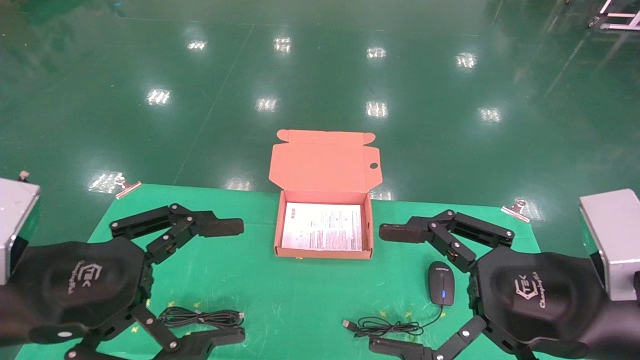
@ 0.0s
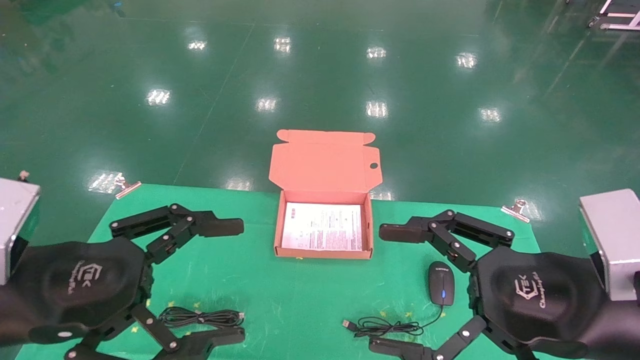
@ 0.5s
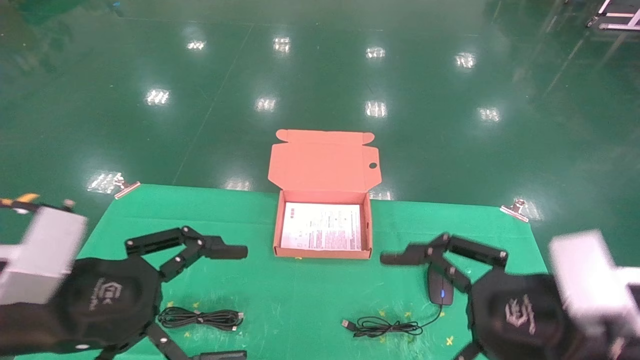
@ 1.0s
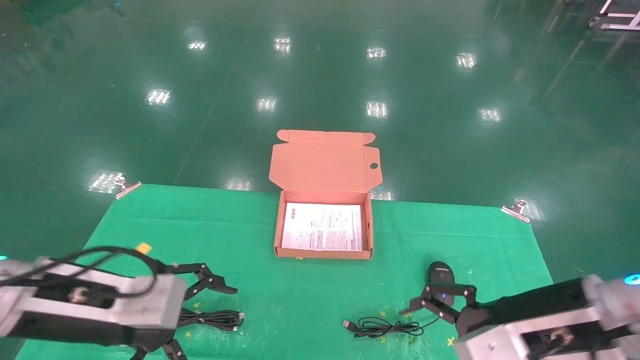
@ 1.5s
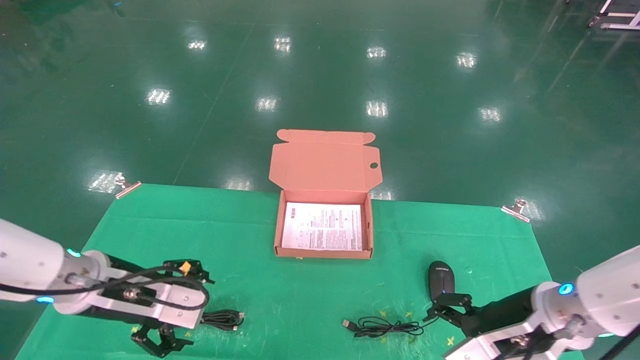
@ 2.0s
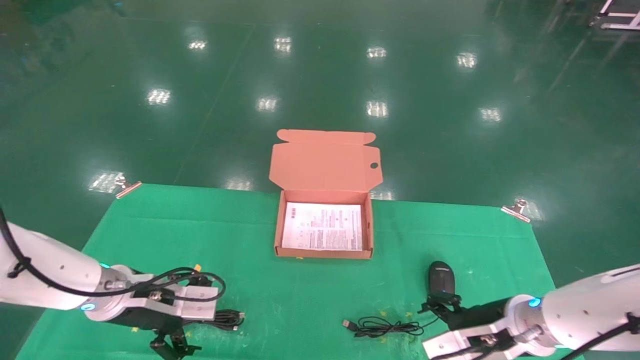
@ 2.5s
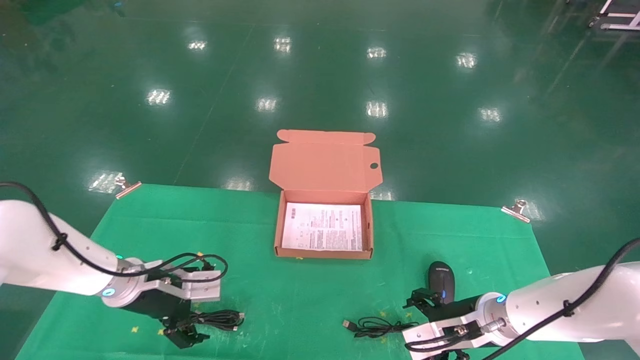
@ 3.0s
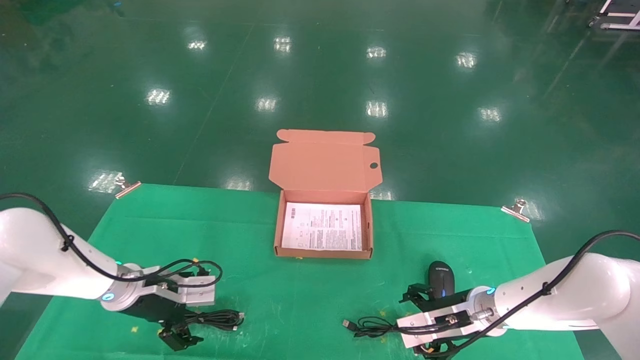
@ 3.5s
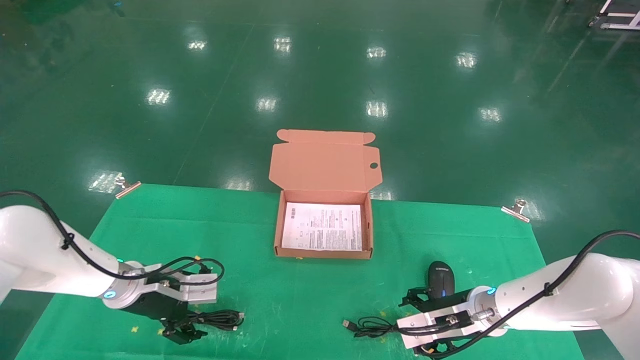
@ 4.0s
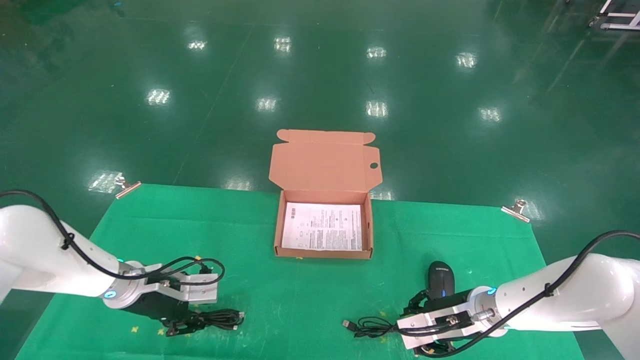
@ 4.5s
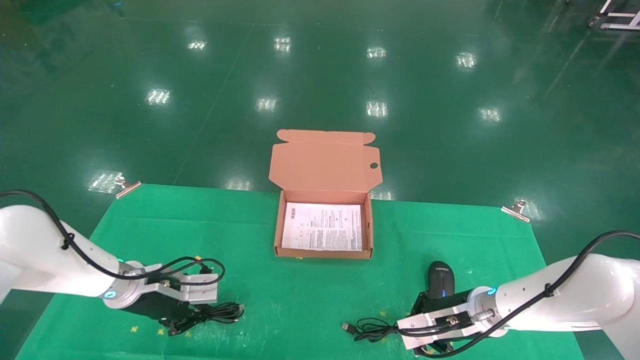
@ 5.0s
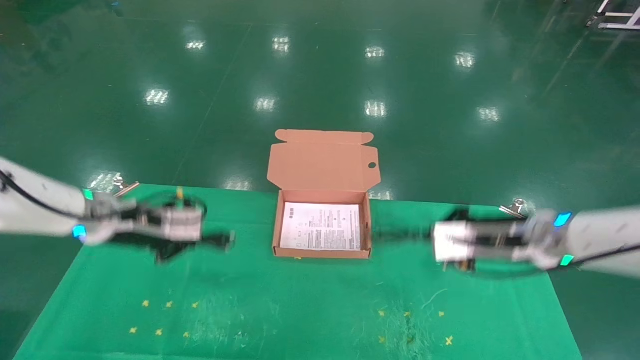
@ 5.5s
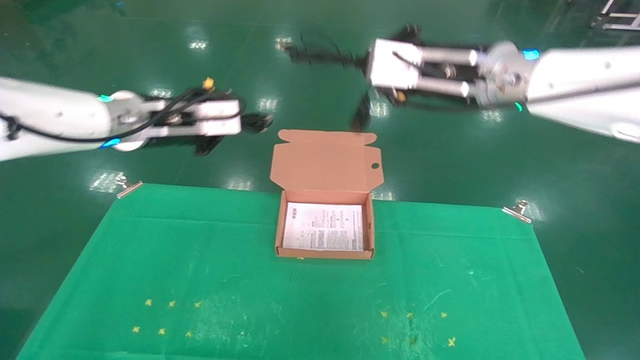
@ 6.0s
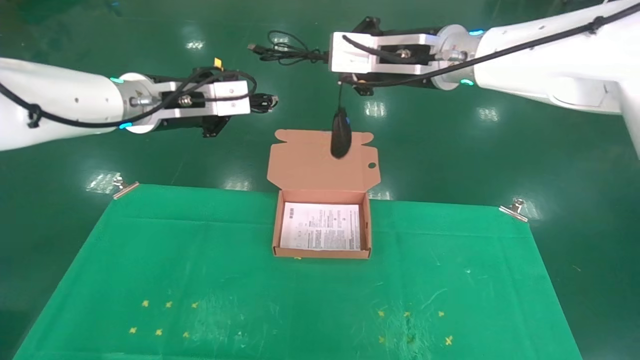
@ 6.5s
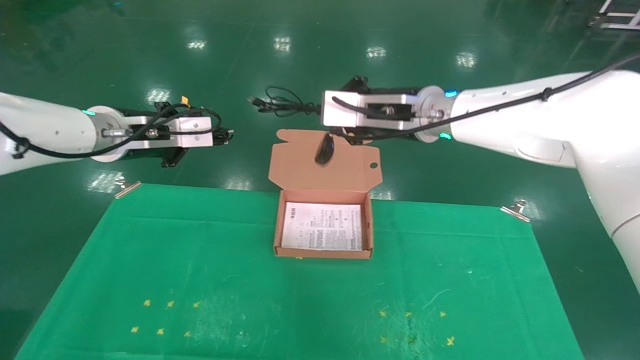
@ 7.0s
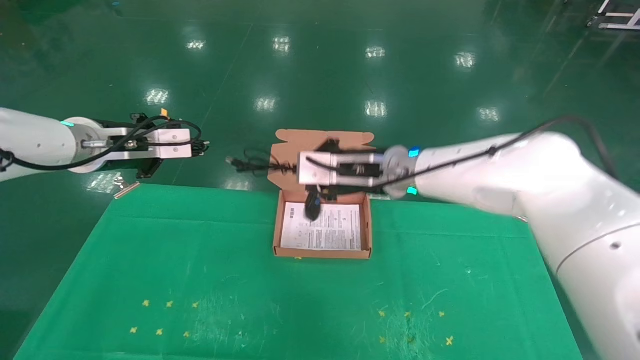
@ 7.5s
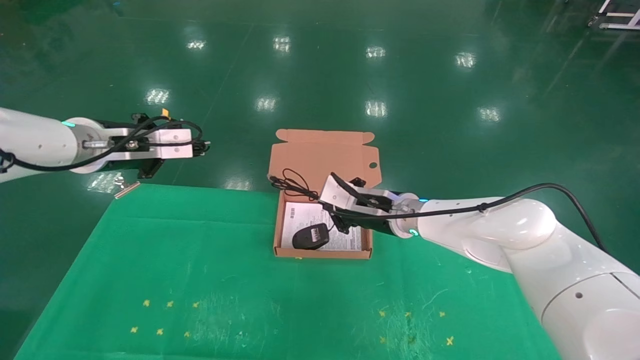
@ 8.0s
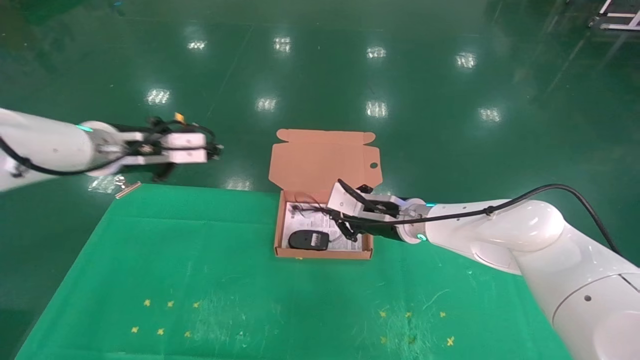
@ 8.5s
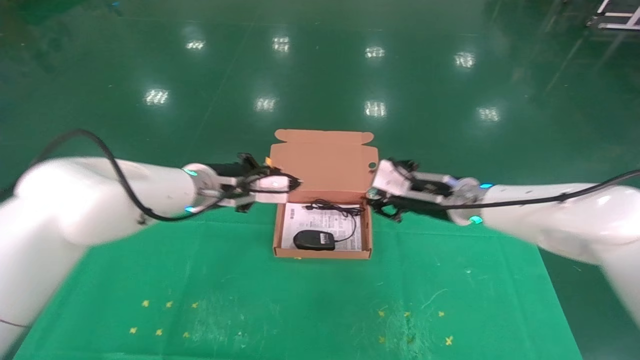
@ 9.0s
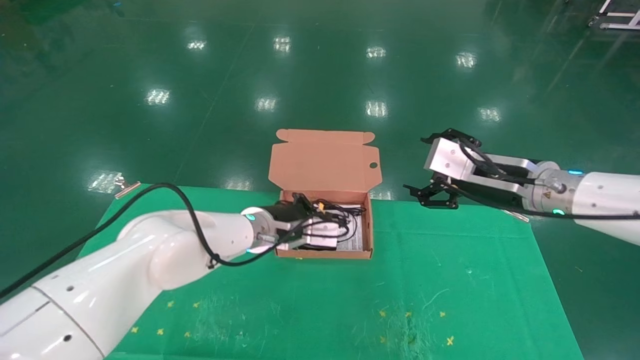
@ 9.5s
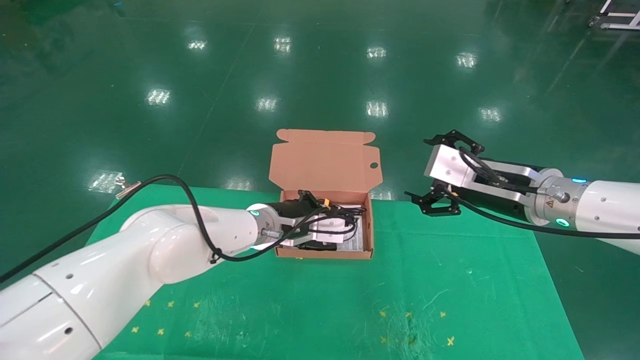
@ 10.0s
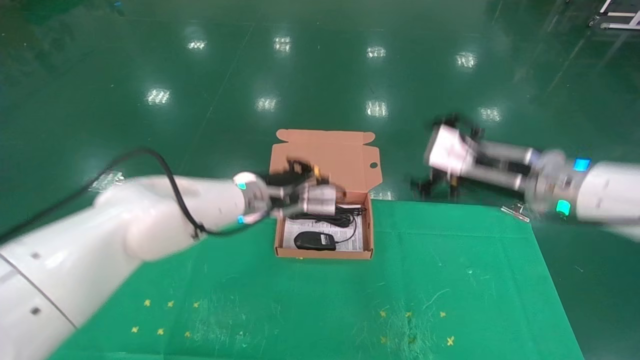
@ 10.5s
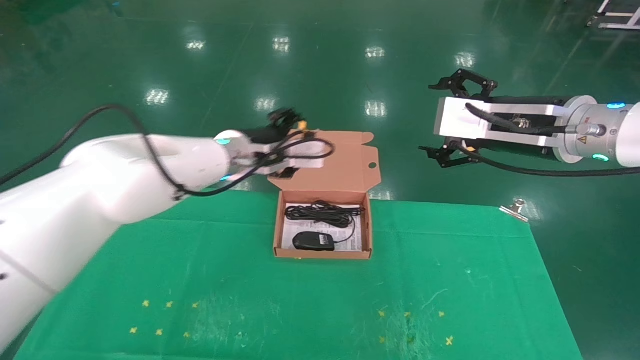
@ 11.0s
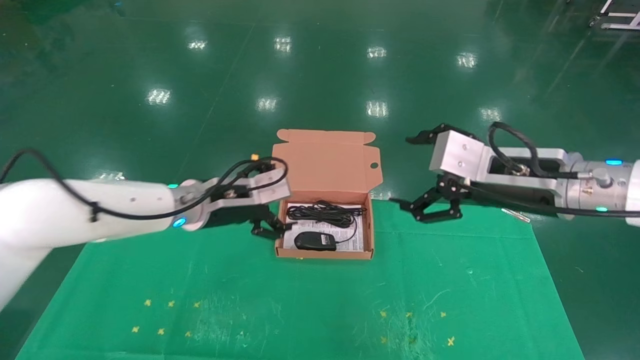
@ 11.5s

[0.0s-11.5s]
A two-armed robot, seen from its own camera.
Task of the whole recording: grasp data cable left put into box grasp mouse right put into box.
Step, 1.0s to 5.0s: Grab and pick up both the mouse and power cord from the accessory packaging area at the same time.
Step, 5.5s to 10.5s: Place the mouse and power cord into the box.
0.0s to 2.0s: Both grippers move forward and downward, about 15 cm.
2.0s to 4.0s: The grippers both shift forward and downward by roughly 15 cm.
4.0s to 6.0s: Both grippers move upward, about 30 cm. The left gripper closes its fingers, while the right gripper closes.
6.0s to 7.5s: The left gripper moves to the left, approximately 5 cm; the right gripper moves downward, to the left and forward, approximately 15 cm.
7.5s to 9.5s: The right gripper moves to the right, about 15 cm, and opens; the left gripper moves to the right and downward, roughly 25 cm.
9.5s to 11.5s: The left gripper moves to the left, approximately 10 cm, and opens its fingers, while the right gripper heads backward, covering approximately 5 cm.

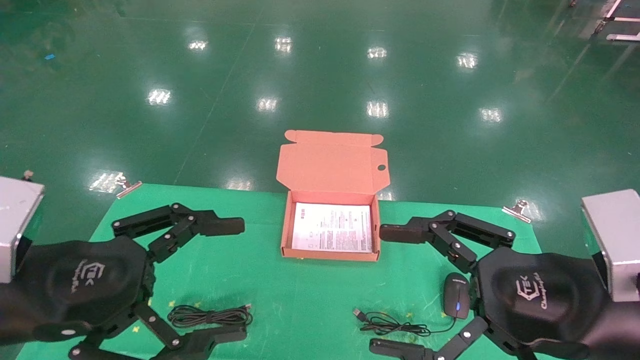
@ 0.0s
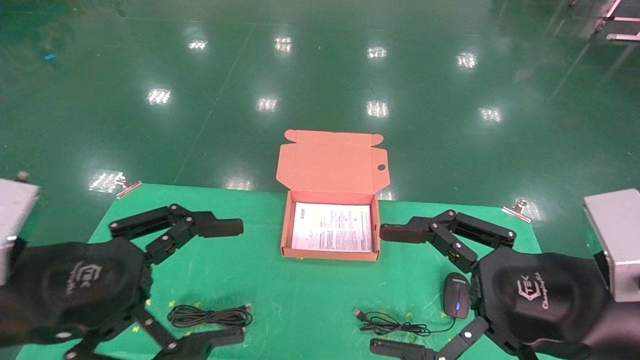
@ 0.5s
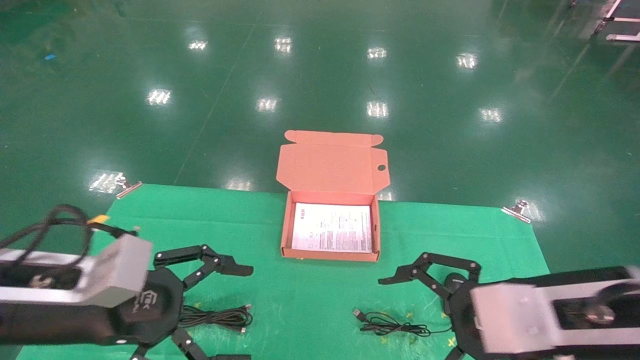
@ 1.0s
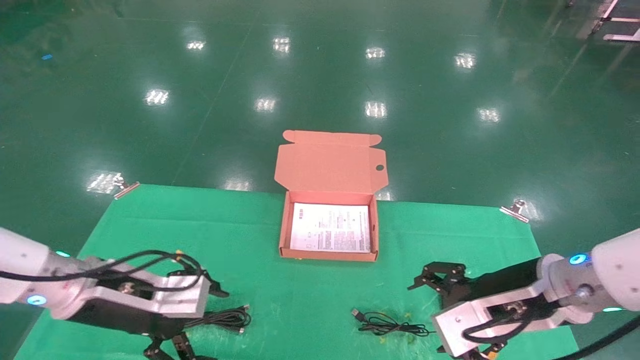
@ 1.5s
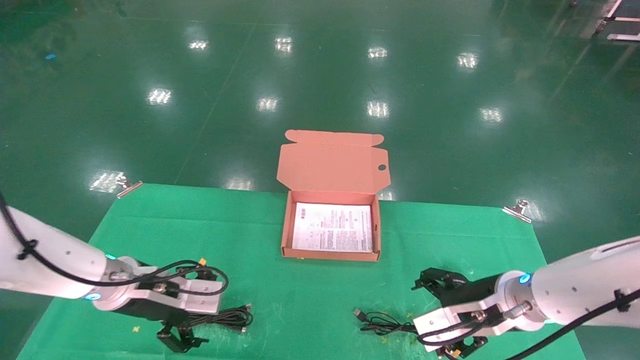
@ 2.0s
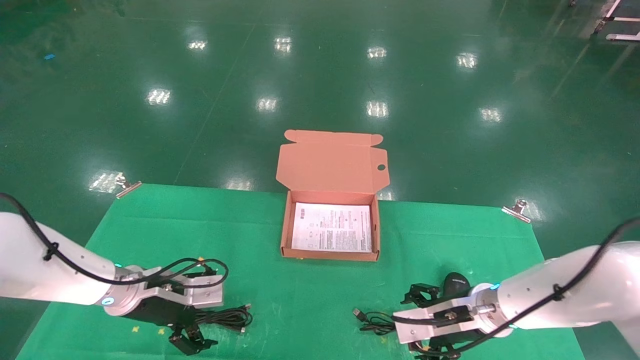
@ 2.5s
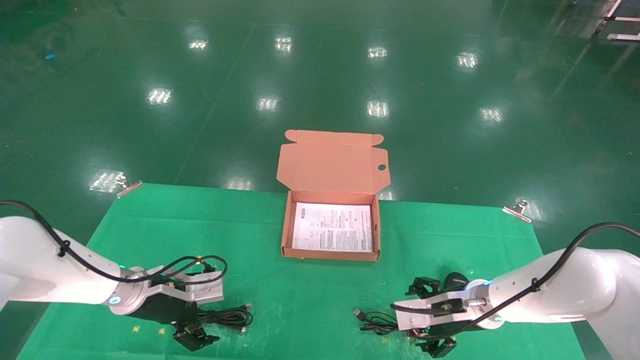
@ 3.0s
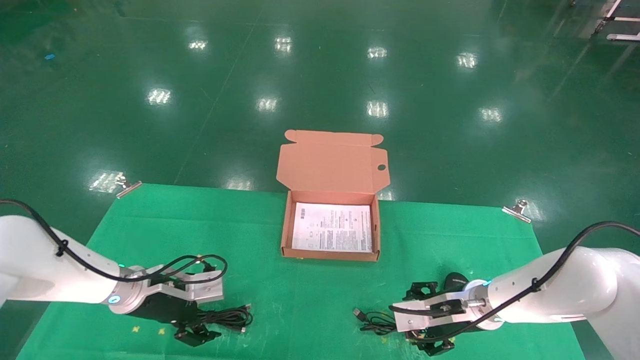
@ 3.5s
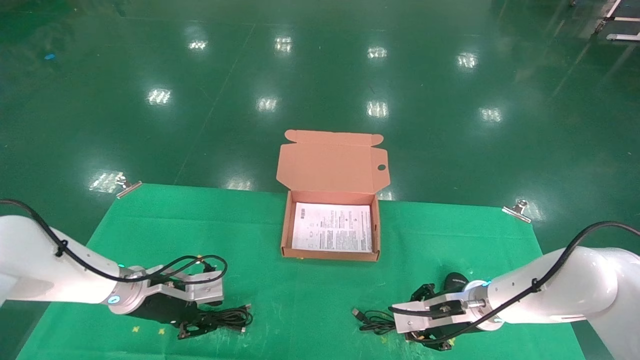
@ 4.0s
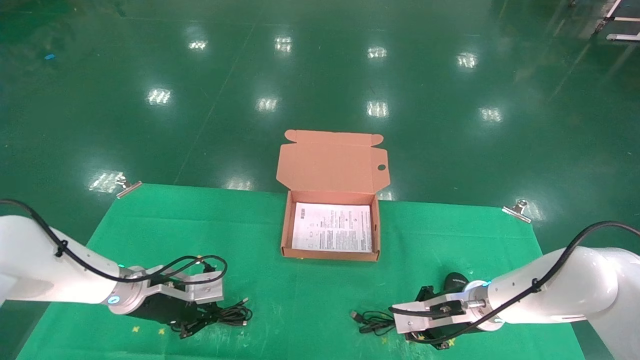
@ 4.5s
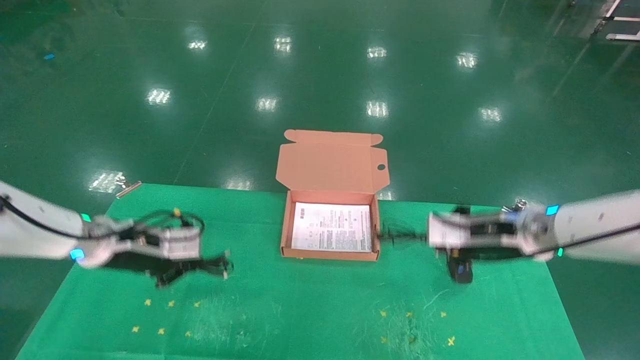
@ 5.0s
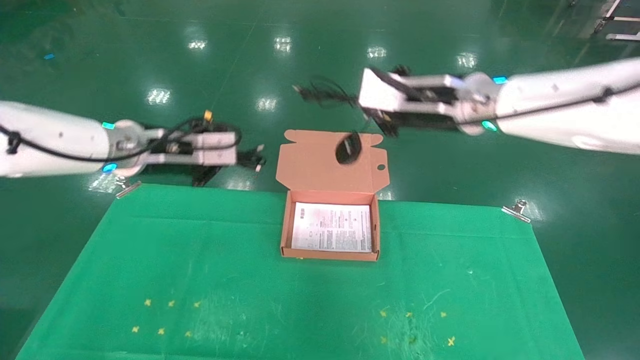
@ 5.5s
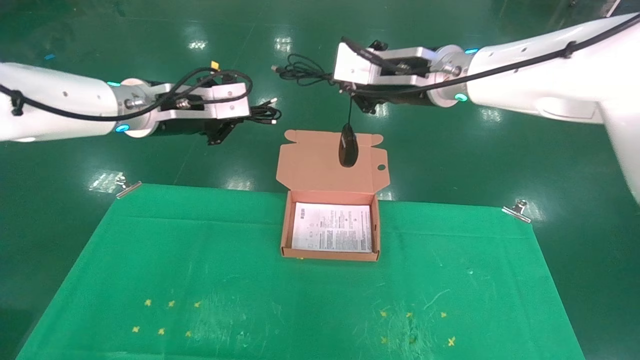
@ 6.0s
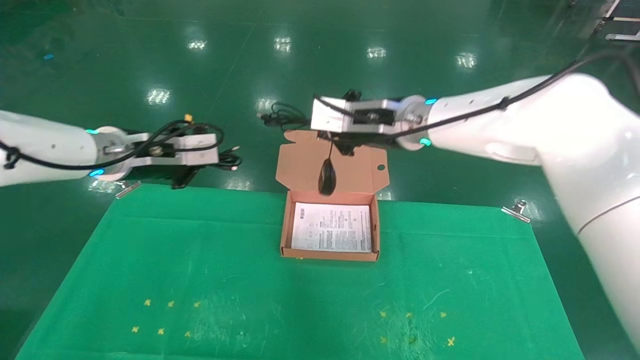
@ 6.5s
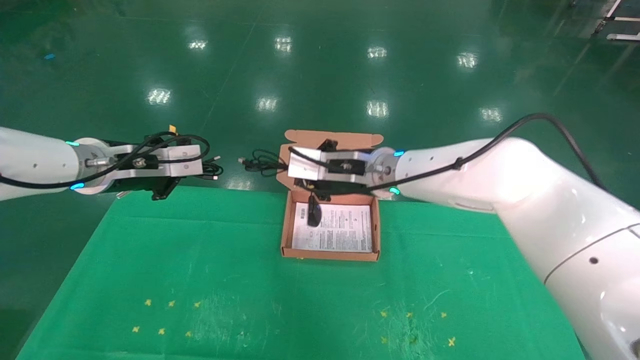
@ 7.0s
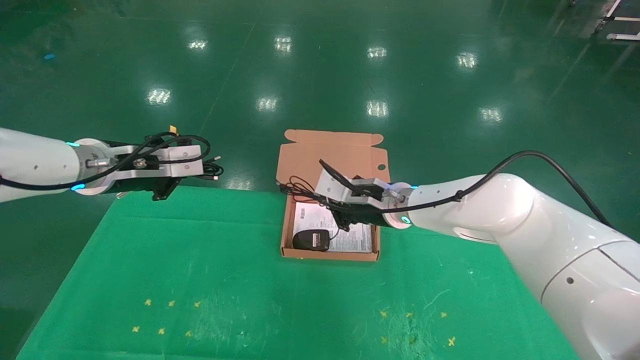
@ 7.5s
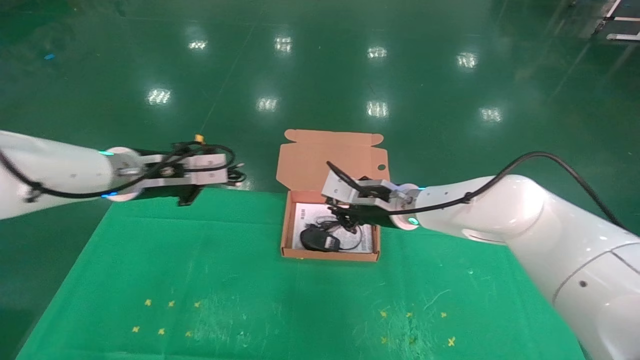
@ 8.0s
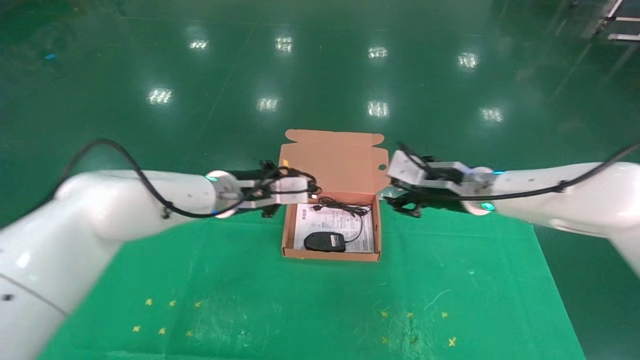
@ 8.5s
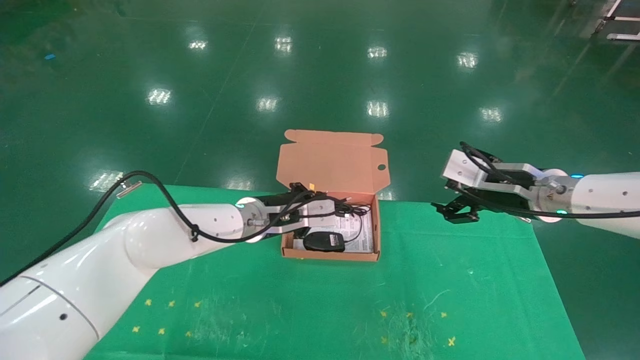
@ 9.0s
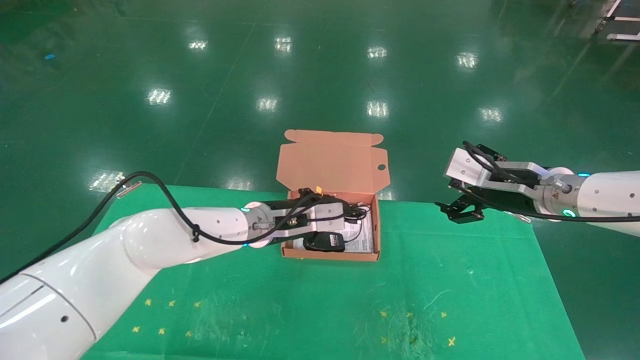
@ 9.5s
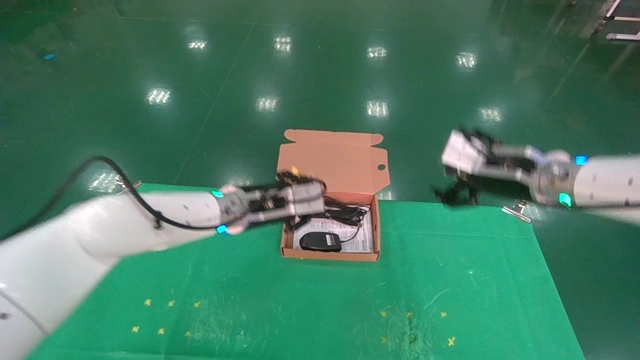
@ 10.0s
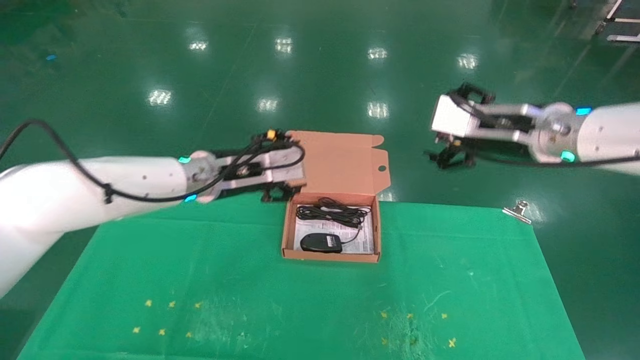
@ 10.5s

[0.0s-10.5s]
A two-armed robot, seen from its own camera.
Task of the whole recording: grasp data cable left put into box grasp mouse right put into box.
Step, 1.0s to 4.5s: Grab and pick up both the mouse and power cord from the accessory packaging area at the same time.
Step, 5.0s to 10.0s: Place the mouse and power cord into the box.
0.0s to 2.0s: The grippers both shift forward and downward by some 15 cm.
2.0s to 4.0s: The left gripper heads forward and downward, covering about 10 cm, and closes its fingers, while the right gripper goes roughly 10 cm downward and forward, and closes up.
4.0s to 6.5s: The right gripper heads upward and to the left, covering some 30 cm, and closes, while the left gripper moves upward, roughly 20 cm, and closes up.
6.5s to 8.5s: The left gripper moves to the right, downward and forward, approximately 20 cm, while the right gripper shifts about 20 cm to the right and downward, and opens up.
8.5s to 10.5s: The right gripper travels upward and backward by roughly 10 cm, and opens. The left gripper moves approximately 10 cm, and opens up.
